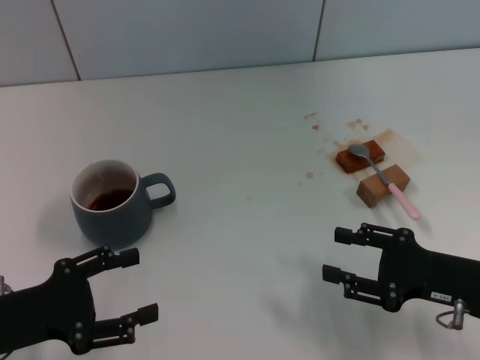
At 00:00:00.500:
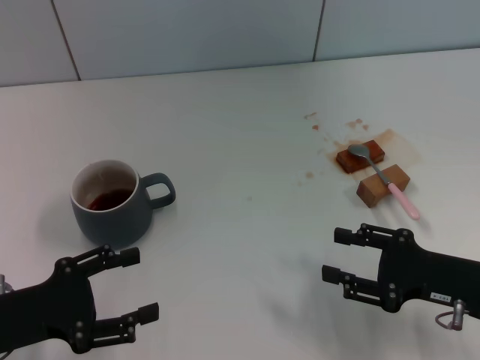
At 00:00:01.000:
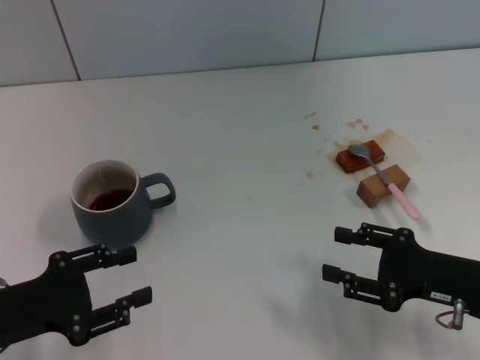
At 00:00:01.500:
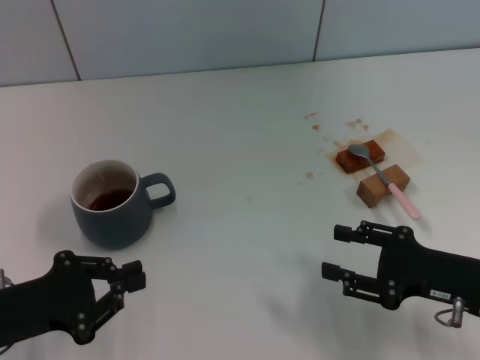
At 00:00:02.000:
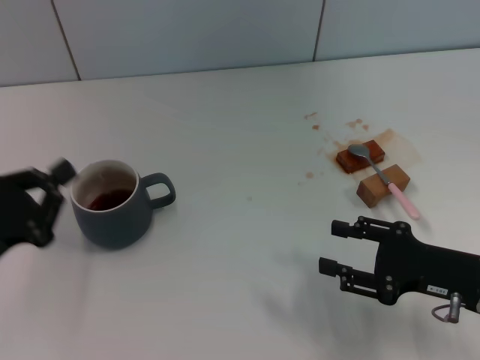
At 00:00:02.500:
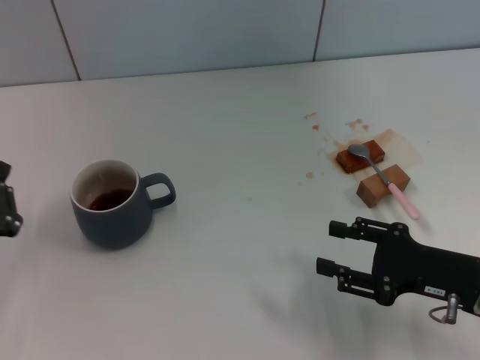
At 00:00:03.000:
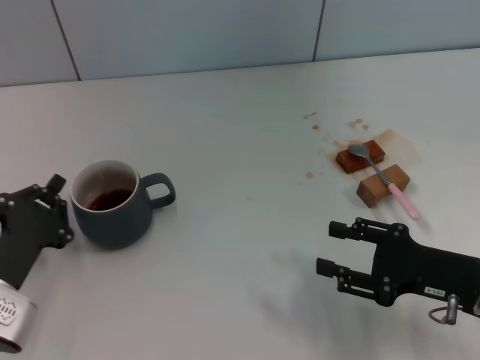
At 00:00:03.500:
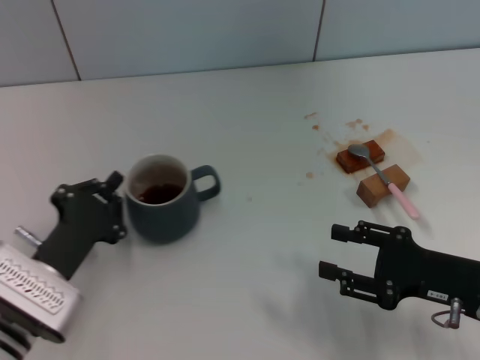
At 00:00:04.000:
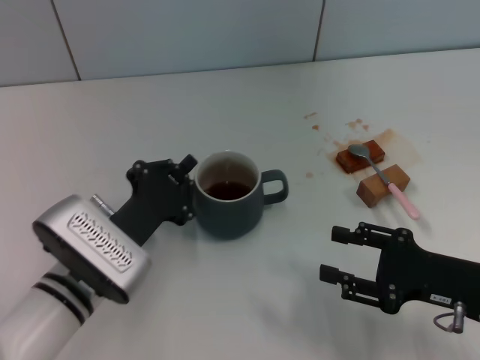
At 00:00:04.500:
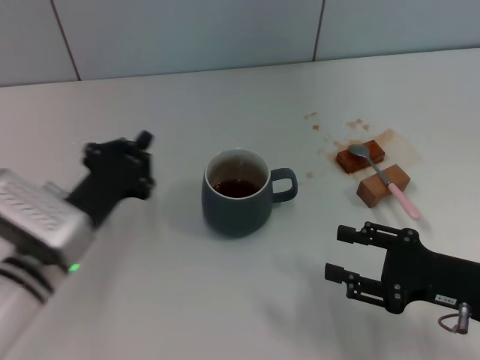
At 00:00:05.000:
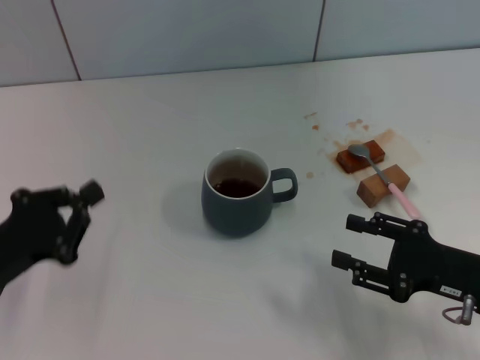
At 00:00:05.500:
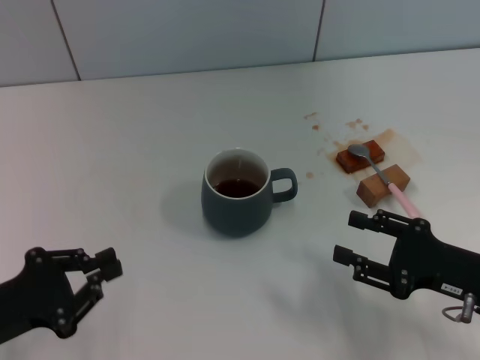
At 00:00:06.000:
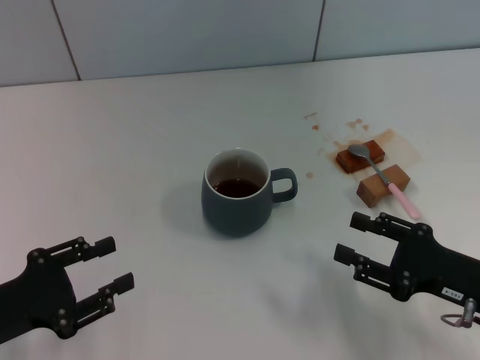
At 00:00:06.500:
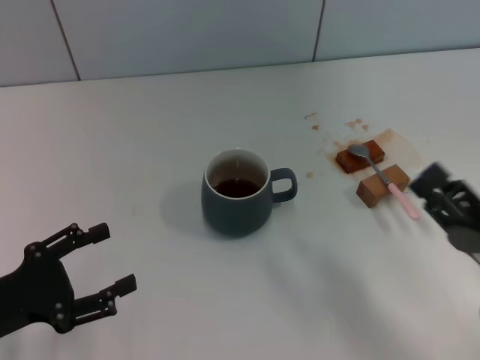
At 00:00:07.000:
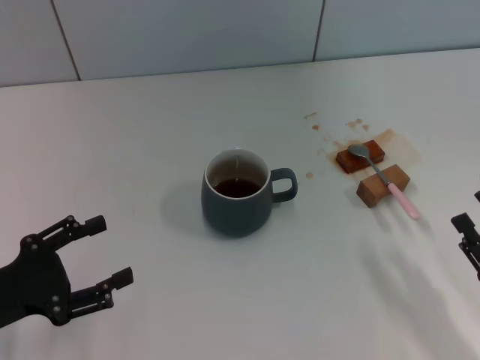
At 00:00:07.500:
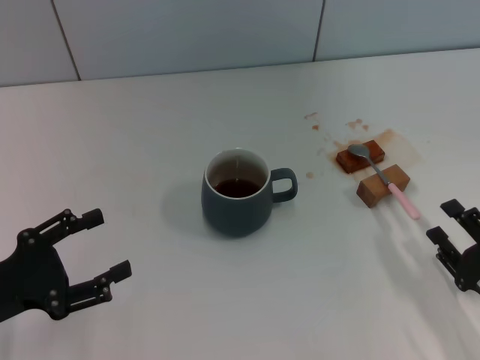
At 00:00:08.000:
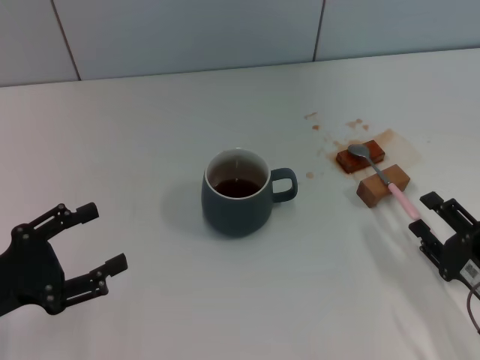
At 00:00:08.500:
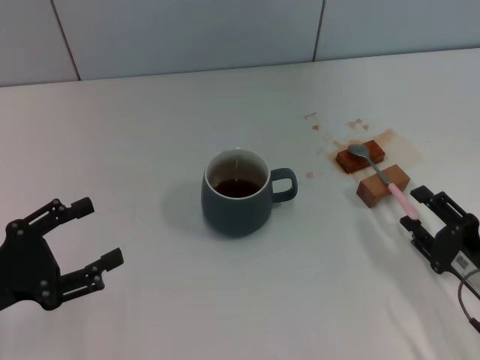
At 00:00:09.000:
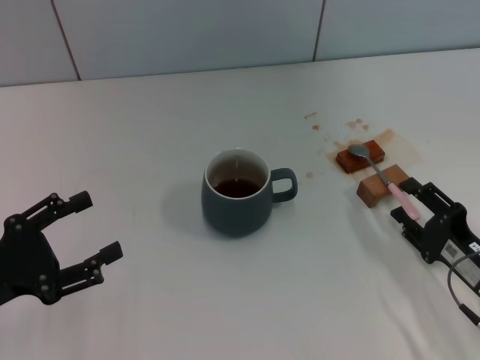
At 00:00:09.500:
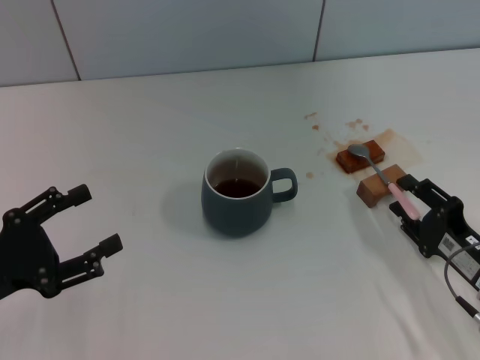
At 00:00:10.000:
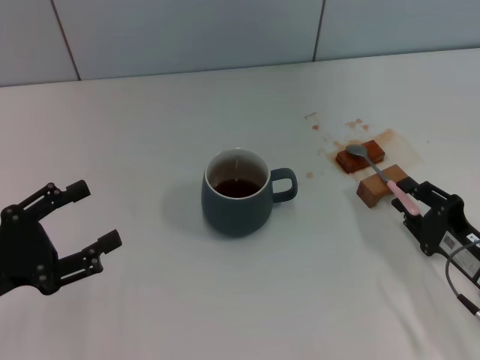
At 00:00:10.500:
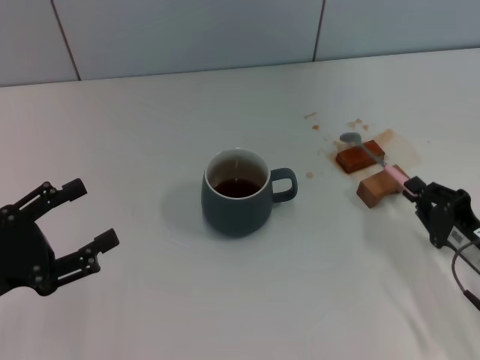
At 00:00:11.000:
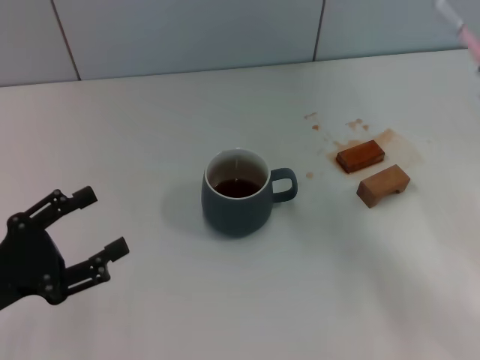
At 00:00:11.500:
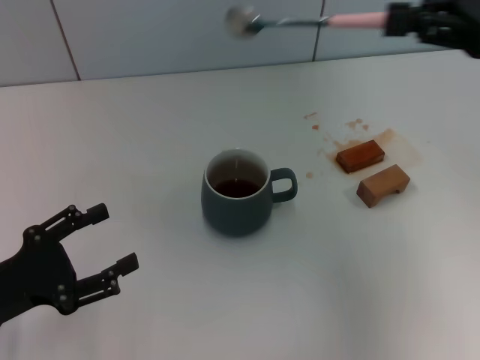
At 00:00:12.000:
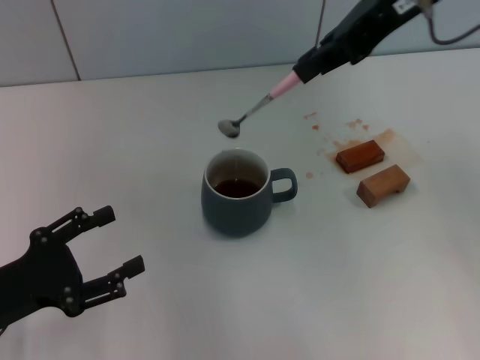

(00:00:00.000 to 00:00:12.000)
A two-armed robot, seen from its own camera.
Task of the whole recording: Move the grey cup to the center, lift the pink spoon, stir it three times in the cup, and put the spoon into the cup.
Step, 00:00:00.000 - 00:00:04.000: Move the cup with coffee to the center of view with the left gripper.
Step, 00:00:04.500 - 00:00:10.500: Pick up the spoon with the right gripper.
00:00:00.000 - 00:00:02.000: The left gripper closes its fingers.
00:00:02.000 - 00:00:04.000: The left gripper moves to the right, some 15 cm.
00:00:04.000 - 00:00:06.000: The left gripper heads to the left and backward, covering approximately 15 cm, and opens.
00:00:06.000 - 00:00:08.000: The left gripper opens its fingers. The right gripper moves roughly 5 cm.
00:00:08.000 - 00:00:10.000: There are only small adjustments of the grippers.
00:00:10.000 - 00:00:12.000: The right gripper travels upward and forward by approximately 35 cm, and closes its fingers.

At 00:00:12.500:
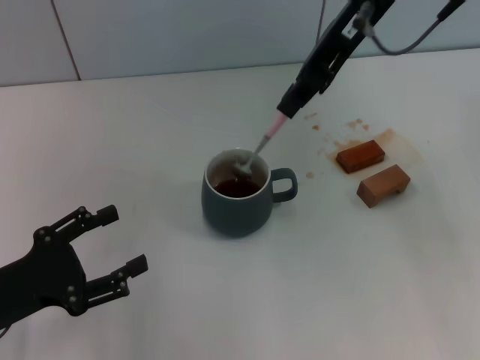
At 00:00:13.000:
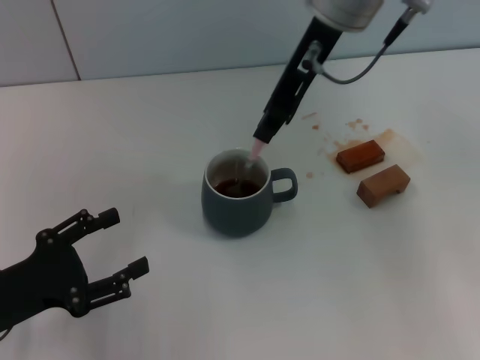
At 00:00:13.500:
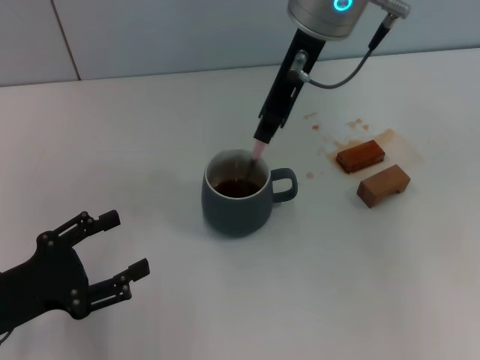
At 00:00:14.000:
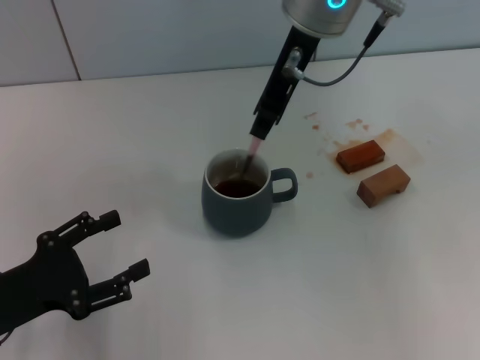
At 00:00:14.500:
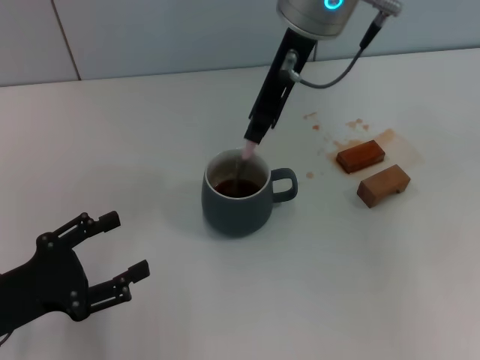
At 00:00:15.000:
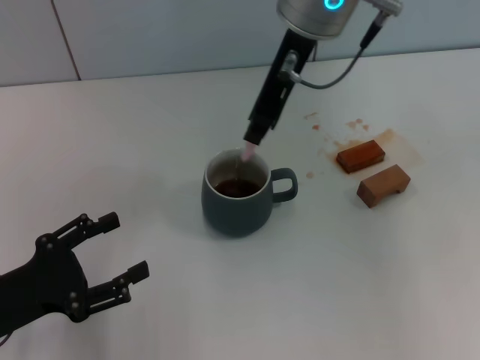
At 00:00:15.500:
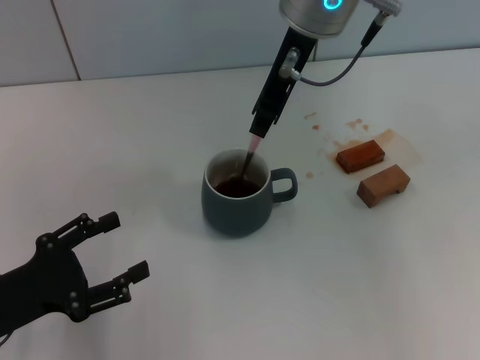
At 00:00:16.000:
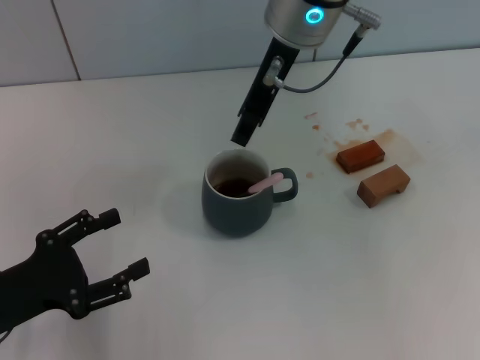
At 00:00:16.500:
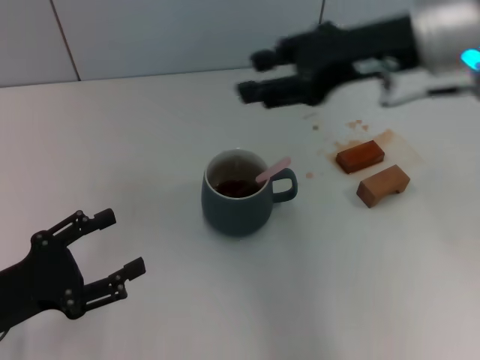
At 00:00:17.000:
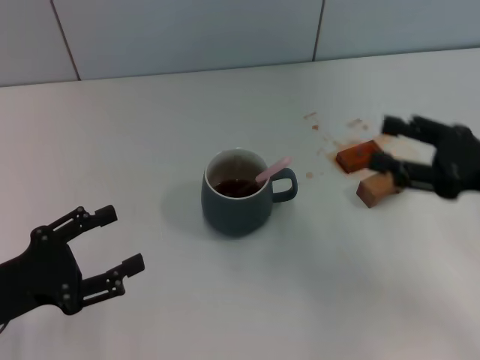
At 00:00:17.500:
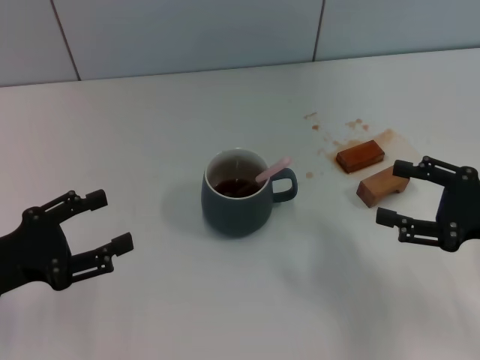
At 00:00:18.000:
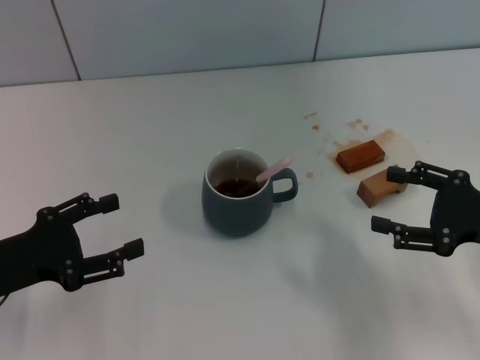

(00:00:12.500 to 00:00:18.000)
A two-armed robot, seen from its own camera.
Task of the whole recording: Move the grey cup to the center, lift the pink spoon, stir it three times in the cup, and put the spoon into the cup.
Step, 00:00:12.500 - 00:00:16.000: Stir the coffee in the cup with the right gripper.
00:00:12.500 - 00:00:14.500: The right gripper is displaced to the left by approximately 5 cm.
00:00:14.500 - 00:00:16.000: There are only small adjustments of the grippers.
00:00:16.000 - 00:00:18.000: The right gripper shifts roughly 35 cm to the right, downward and backward, and opens up.
